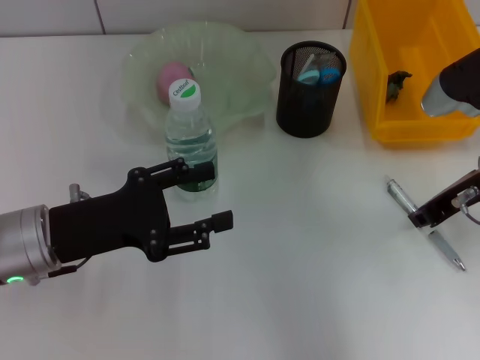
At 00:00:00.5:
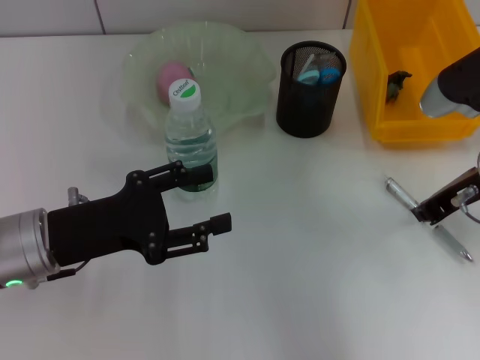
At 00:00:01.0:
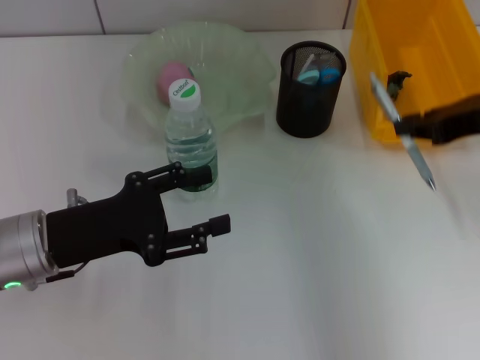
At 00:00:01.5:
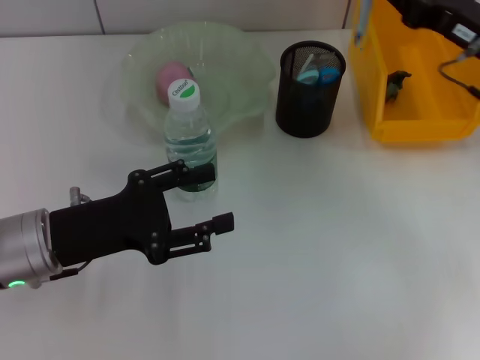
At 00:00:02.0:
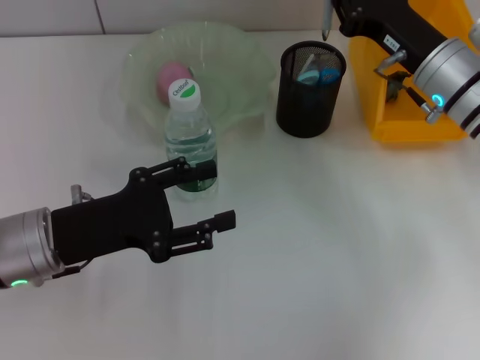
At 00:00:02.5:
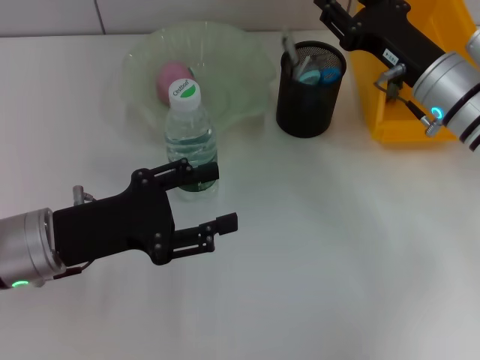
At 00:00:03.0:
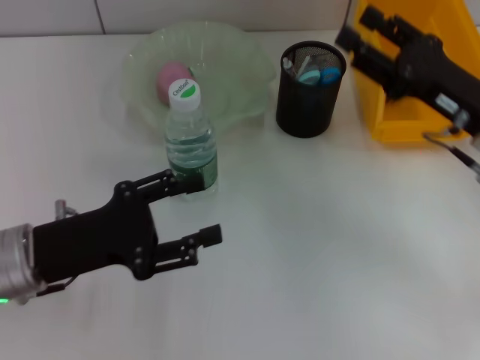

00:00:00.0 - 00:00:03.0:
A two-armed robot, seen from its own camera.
Step, 00:00:00.5 - 00:00:02.0: Place the gray spring-action pen into the pen holder with the right hand.
00:00:01.5 - 00:00:03.0: The right gripper travels backward by about 5 cm, and opens up.

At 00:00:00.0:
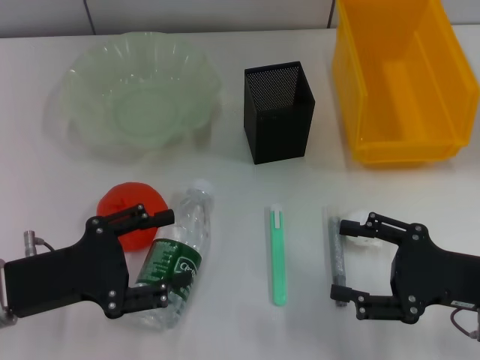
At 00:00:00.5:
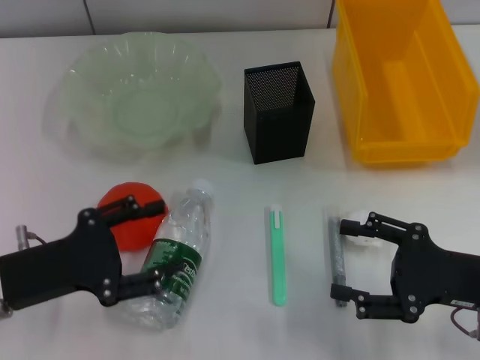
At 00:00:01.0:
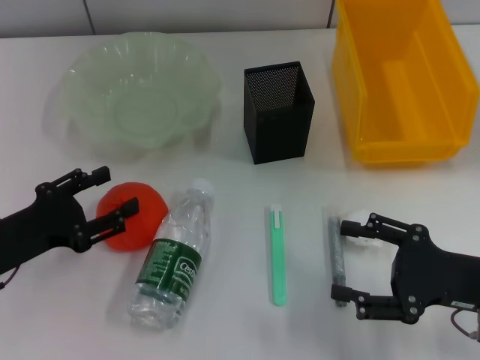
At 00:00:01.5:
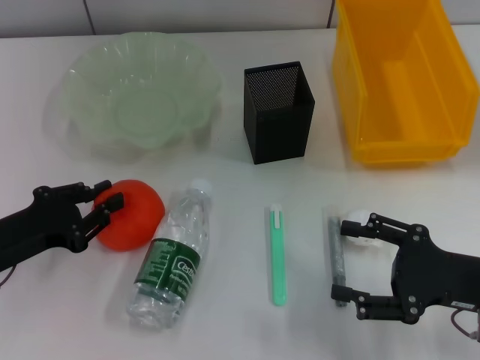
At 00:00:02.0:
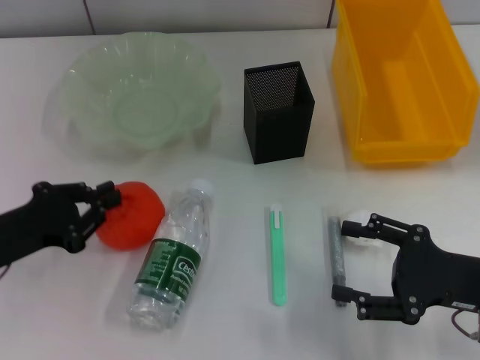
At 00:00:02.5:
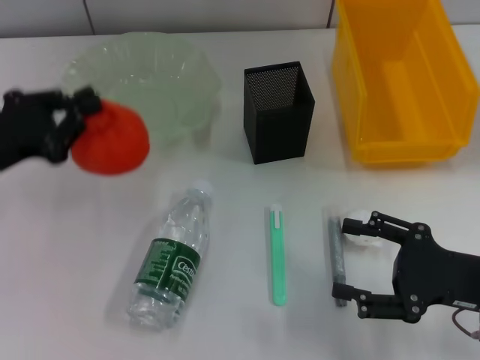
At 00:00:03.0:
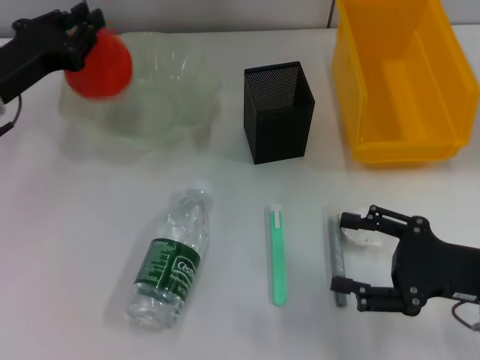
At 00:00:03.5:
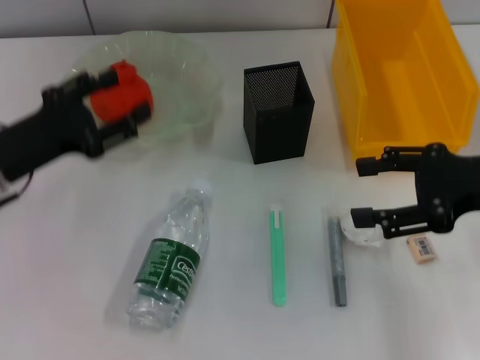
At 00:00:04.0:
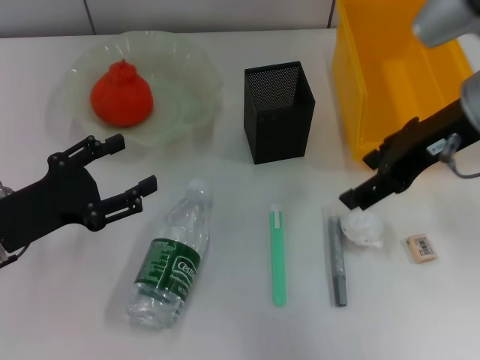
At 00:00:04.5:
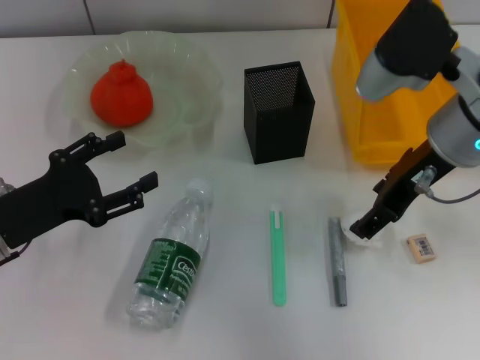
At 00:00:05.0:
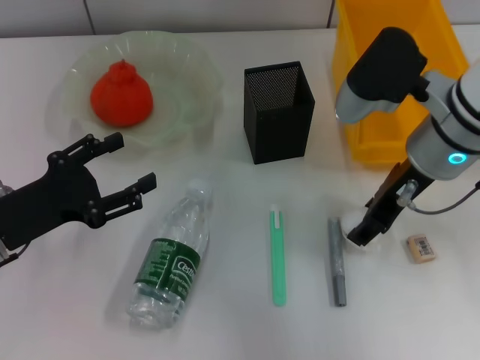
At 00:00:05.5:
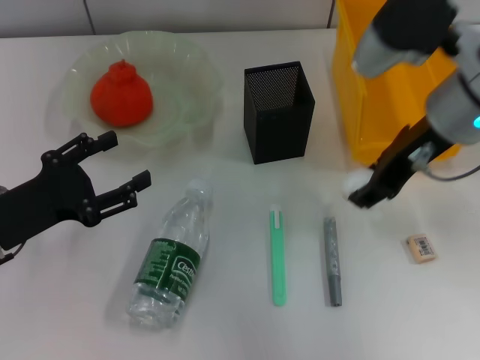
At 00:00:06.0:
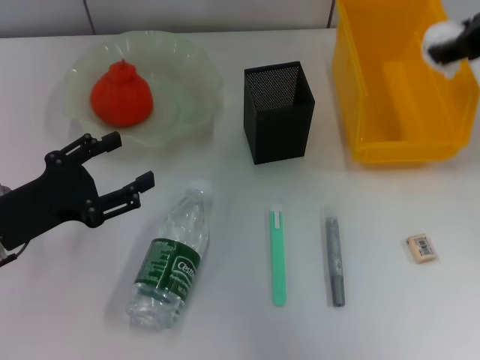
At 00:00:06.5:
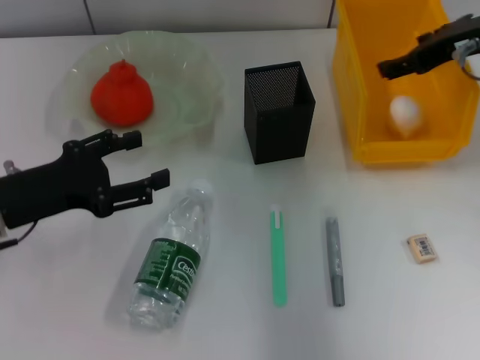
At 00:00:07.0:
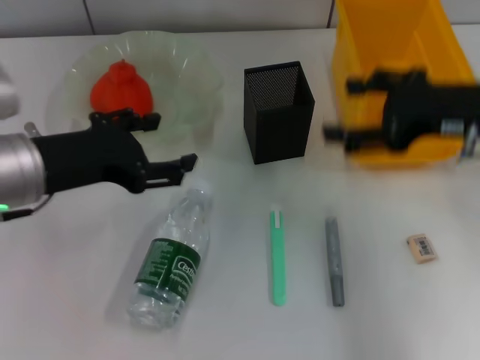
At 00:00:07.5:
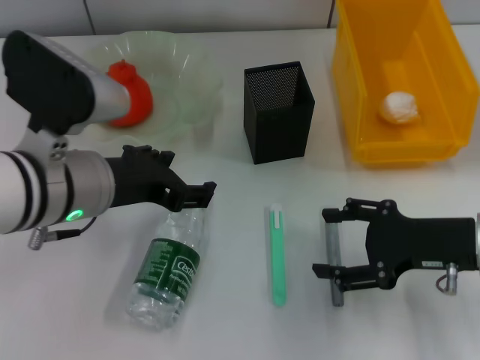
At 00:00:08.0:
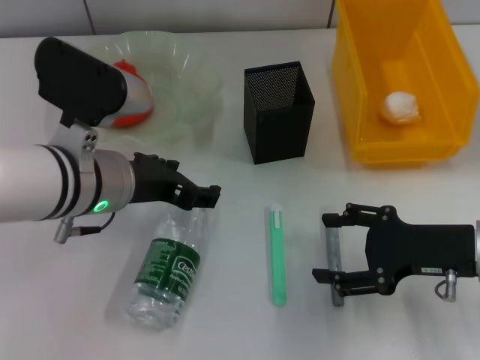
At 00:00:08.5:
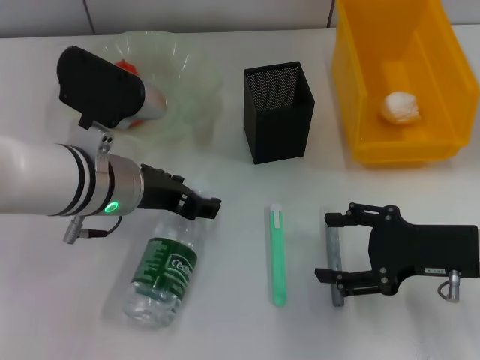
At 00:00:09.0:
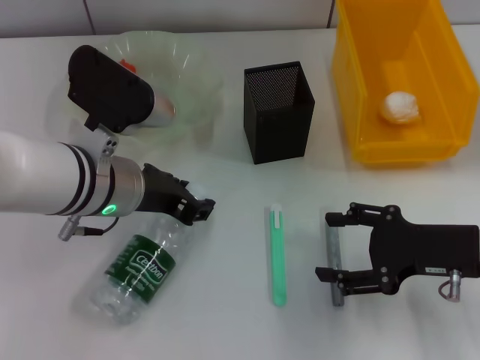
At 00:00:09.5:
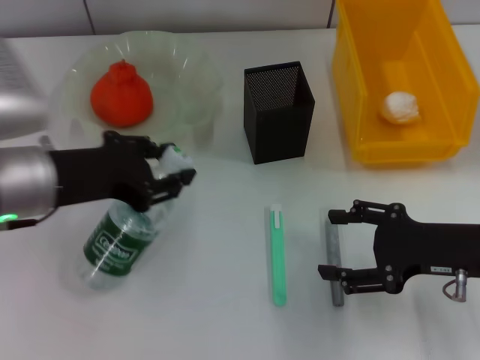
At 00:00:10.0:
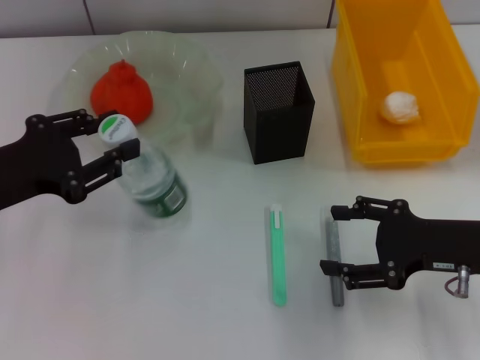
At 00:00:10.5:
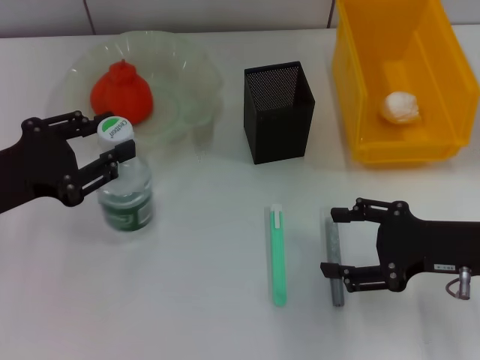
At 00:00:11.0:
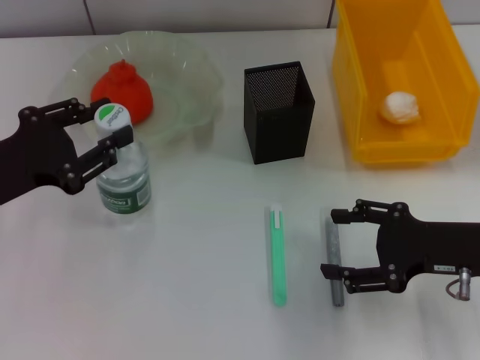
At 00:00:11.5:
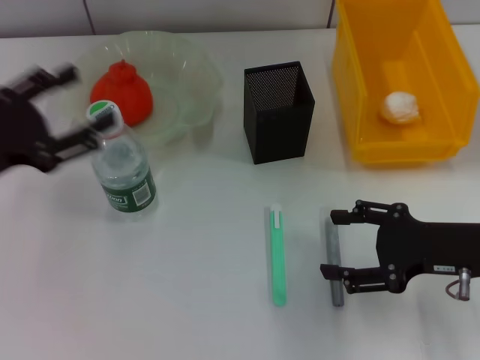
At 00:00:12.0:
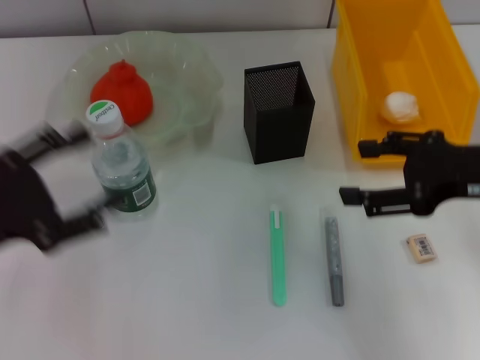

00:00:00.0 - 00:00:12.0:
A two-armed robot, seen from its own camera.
Step, 00:00:00.0 - 00:00:01.5: Grab the orange with the left hand.
Step, 00:00:02.0 - 00:00:03.0: Place the orange into the fruit bowl with the left hand.
Step, 00:00:03.5 - 00:00:05.0: Grab the paper ball with the right hand.
Step, 00:00:05.5 - 00:00:06.5: Place the paper ball into the trash can with the right hand.
Step, 00:00:07.0 - 00:00:08.5: Grab the water bottle with the left hand.
Step, 00:00:09.5 - 00:00:11.0: Place the water bottle on the table with the left hand.
00:00:00.0 - 00:00:02.0: The left gripper closes its fingers.
00:00:02.0 - 00:00:04.0: The right gripper goes approximately 20 cm upward, forward and to the left. The left gripper goes forward and returns, roughly 10 cm each way, and opens up.
00:00:04.0 - 00:00:06.0: The right gripper heads upward, covering approximately 5 cm, and closes.
00:00:06.0 - 00:00:08.0: The left gripper shifts some 15 cm to the right and upward. The right gripper goes some 25 cm downward and backward, and opens up.
00:00:08.0 - 00:00:10.0: The left gripper moves to the left, about 15 cm, and closes.
00:00:10.0 - 00:00:12.0: The right gripper heads upward, covering some 10 cm. The left gripper opens.

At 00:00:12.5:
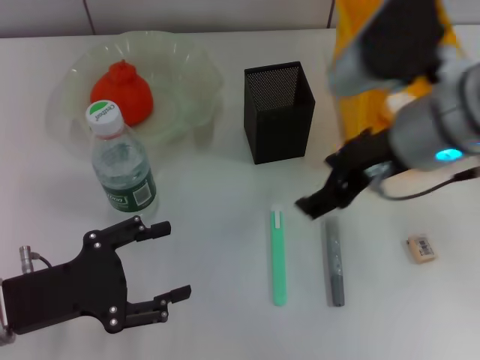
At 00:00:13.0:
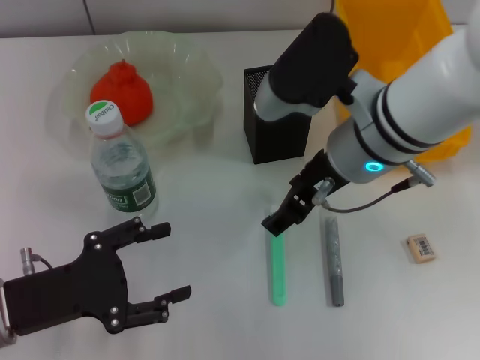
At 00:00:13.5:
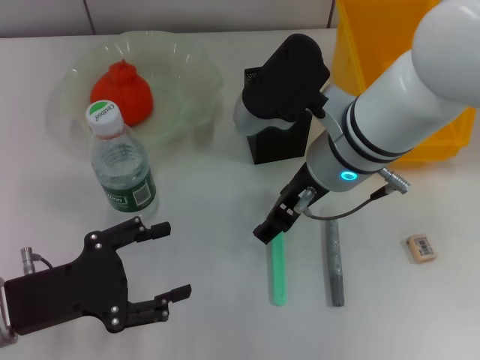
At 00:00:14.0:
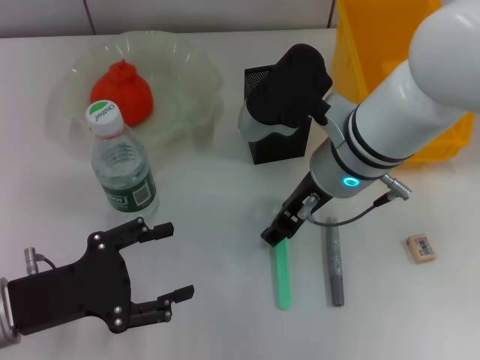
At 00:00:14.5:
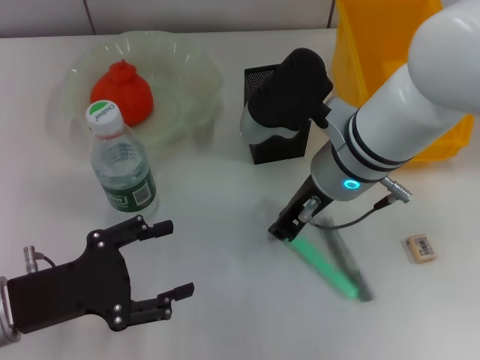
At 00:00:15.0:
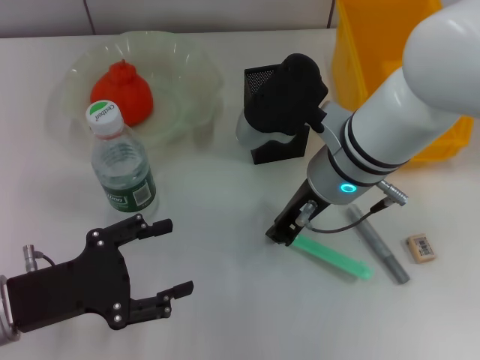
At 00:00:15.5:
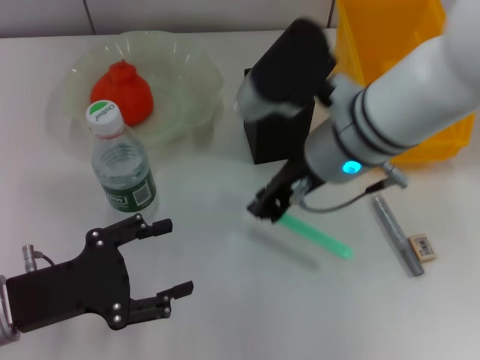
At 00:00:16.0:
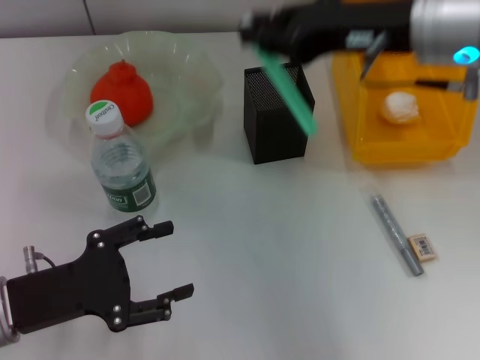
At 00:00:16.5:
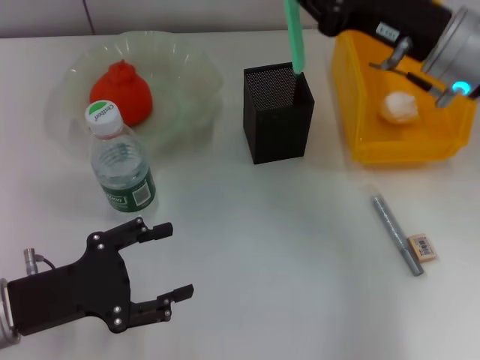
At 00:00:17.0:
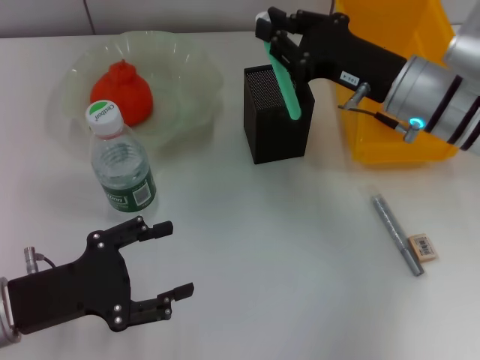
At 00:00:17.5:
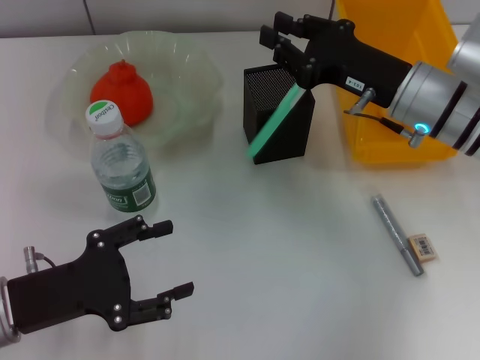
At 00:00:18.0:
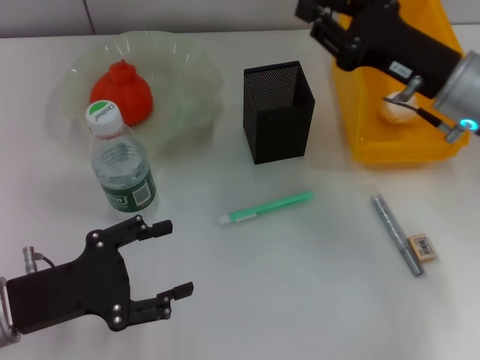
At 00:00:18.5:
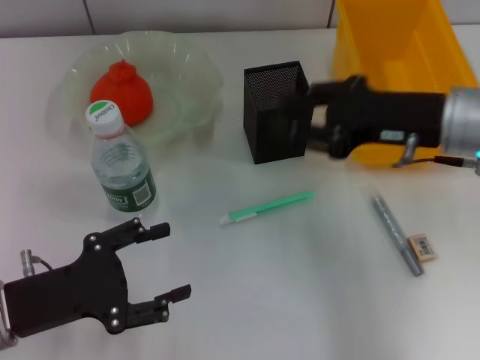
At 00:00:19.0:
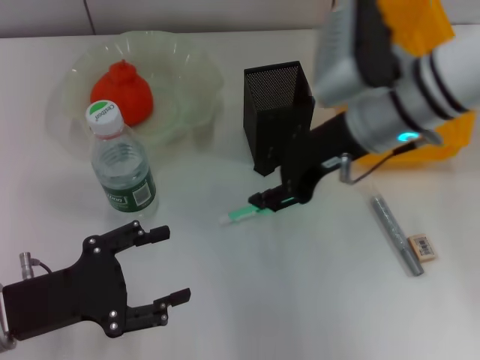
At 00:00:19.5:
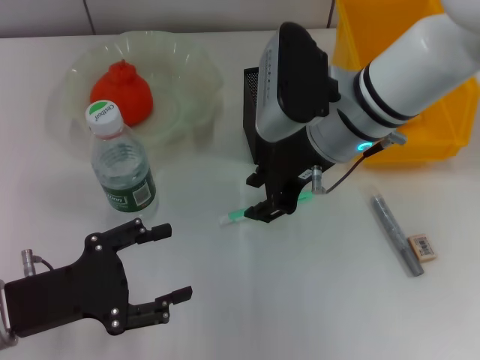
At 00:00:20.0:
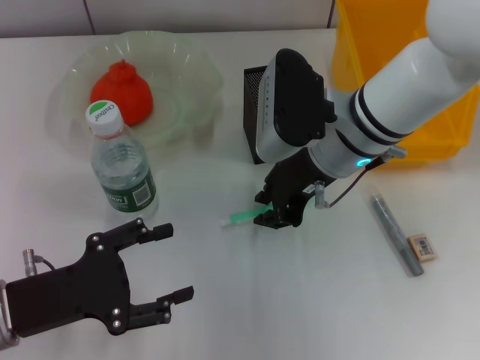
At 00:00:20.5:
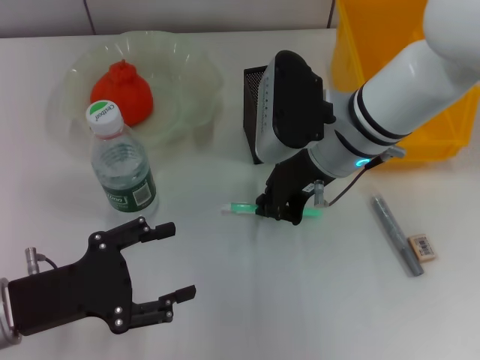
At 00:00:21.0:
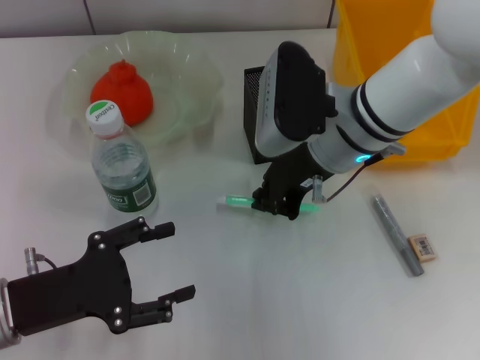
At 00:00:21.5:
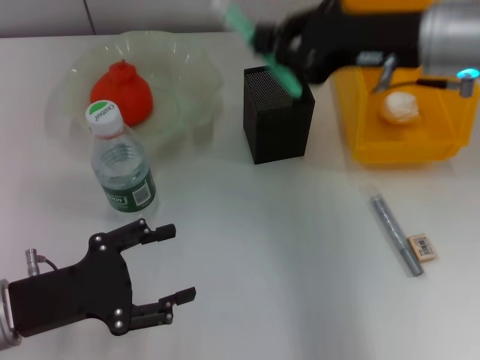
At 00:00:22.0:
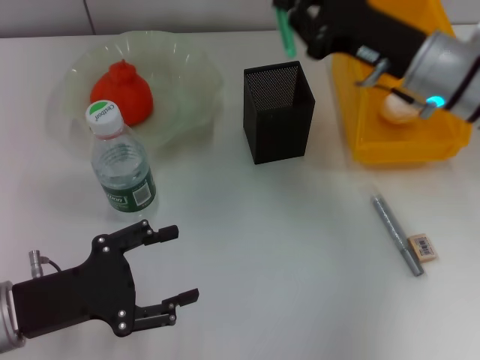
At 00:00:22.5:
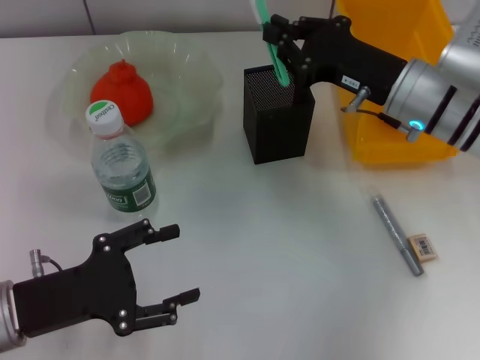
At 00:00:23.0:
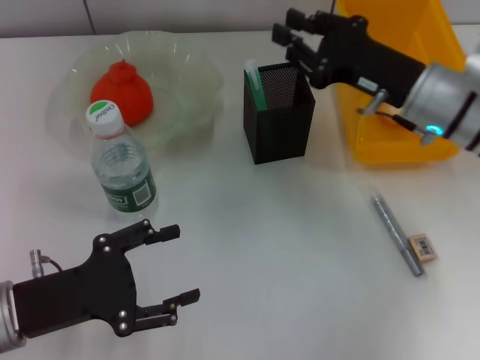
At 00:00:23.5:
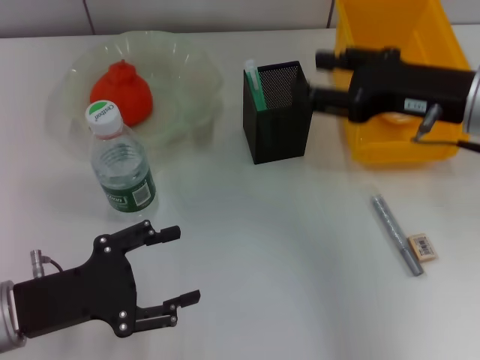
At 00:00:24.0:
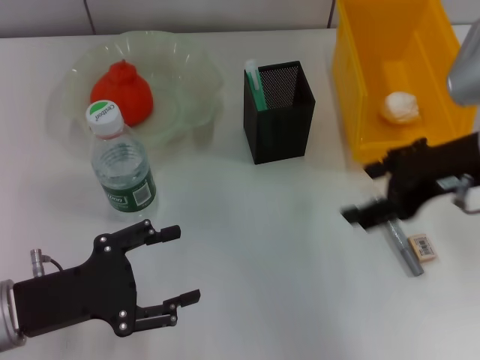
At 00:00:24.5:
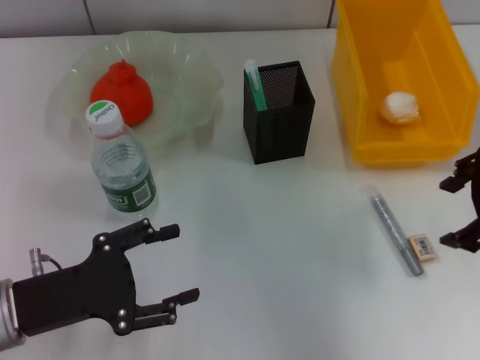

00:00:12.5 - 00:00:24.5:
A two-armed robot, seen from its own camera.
Step, 00:00:12.5 - 00:00:20.5: Grab the blue utility knife with the right hand.
Step, 00:00:21.0 - 00:00:22.5: Place the blue utility knife into the pen holder with the right hand.
00:00:12.5 - 00:00:14.5: The right gripper travels downward and to the left by approximately 10 cm, and closes its fingers.
00:00:14.5 - 00:00:16.5: The right gripper goes about 10 cm to the right, and travels upward and back again, approximately 10 cm each way.
00:00:18.5 - 00:00:20.5: The right gripper is displaced to the left by about 10 cm.
00:00:20.5 - 00:00:22.5: The right gripper heads to the right, covering some 10 cm, and goes upward and returns, approximately 10 cm each way.
00:00:22.5 - 00:00:24.5: The right gripper goes approximately 15 cm upward, to the right and backward, and opens up.
